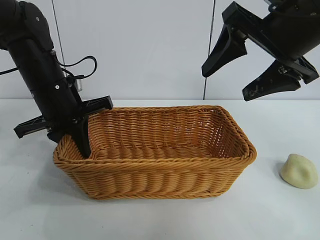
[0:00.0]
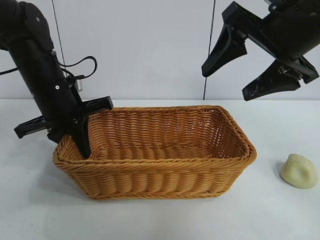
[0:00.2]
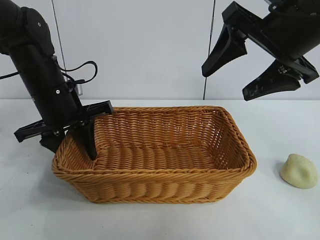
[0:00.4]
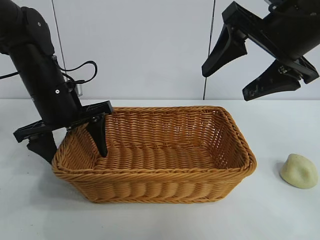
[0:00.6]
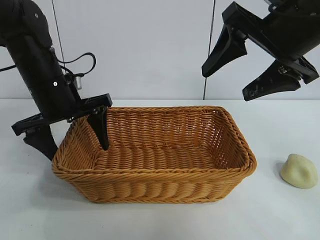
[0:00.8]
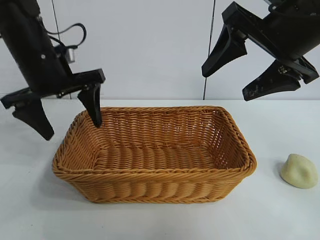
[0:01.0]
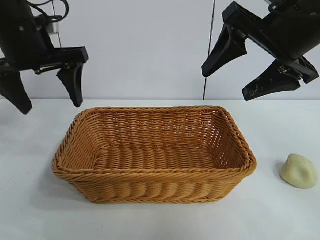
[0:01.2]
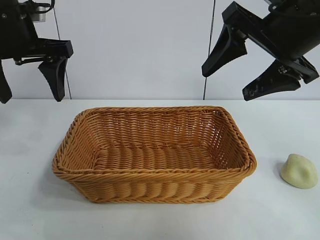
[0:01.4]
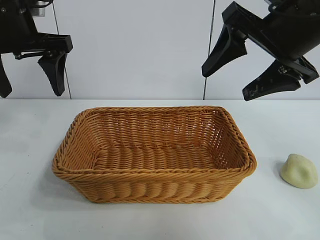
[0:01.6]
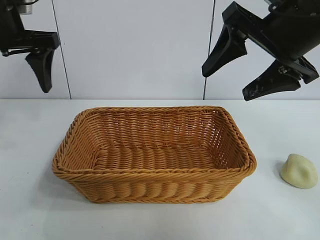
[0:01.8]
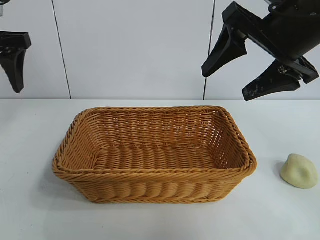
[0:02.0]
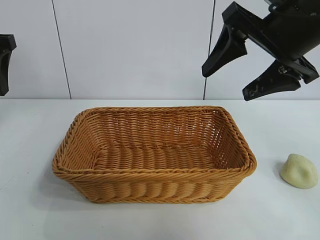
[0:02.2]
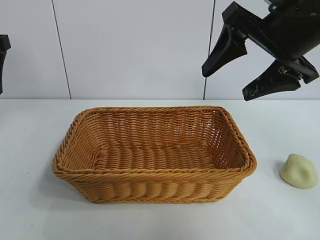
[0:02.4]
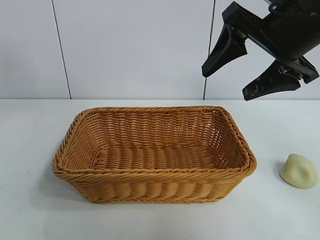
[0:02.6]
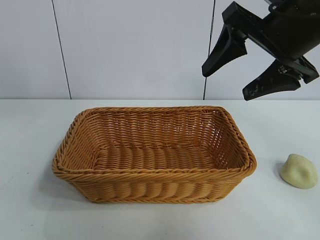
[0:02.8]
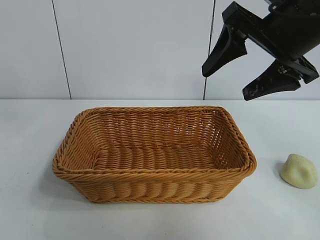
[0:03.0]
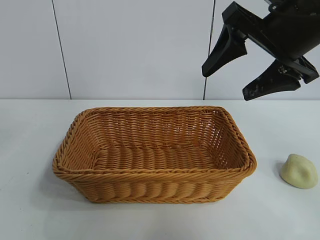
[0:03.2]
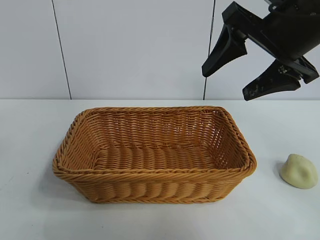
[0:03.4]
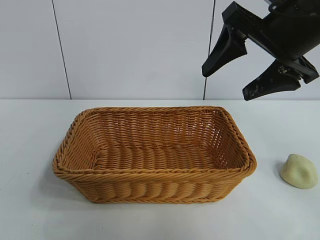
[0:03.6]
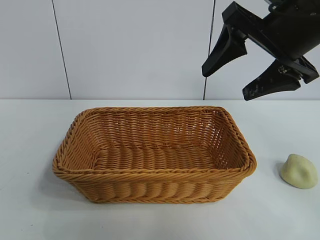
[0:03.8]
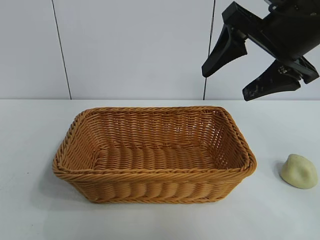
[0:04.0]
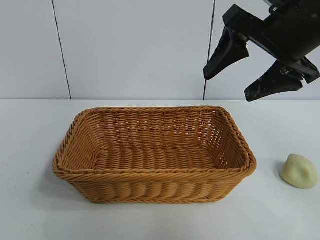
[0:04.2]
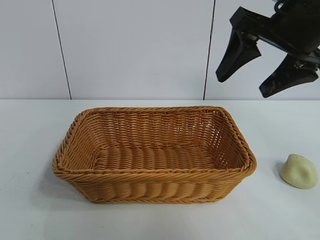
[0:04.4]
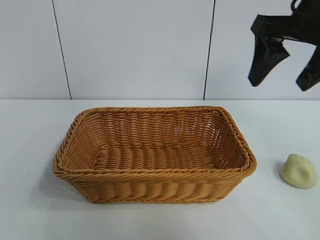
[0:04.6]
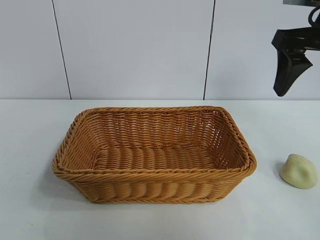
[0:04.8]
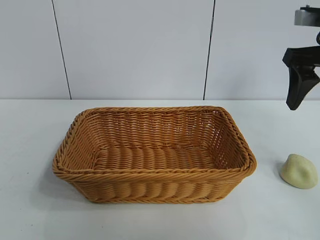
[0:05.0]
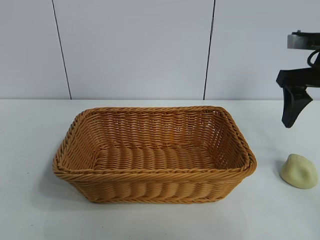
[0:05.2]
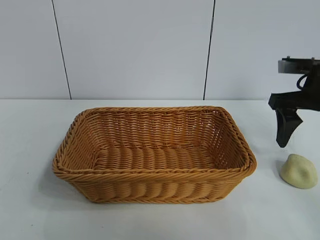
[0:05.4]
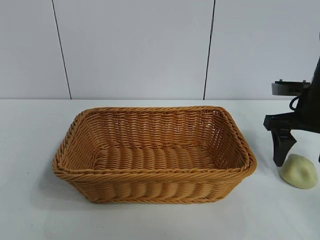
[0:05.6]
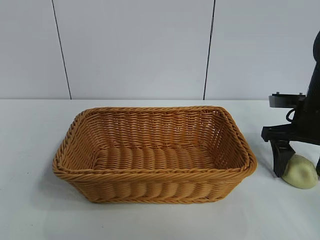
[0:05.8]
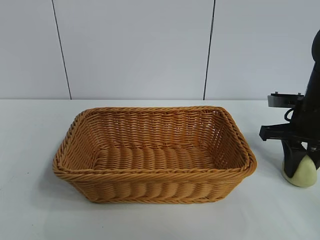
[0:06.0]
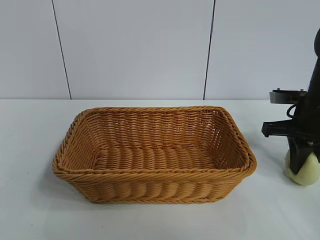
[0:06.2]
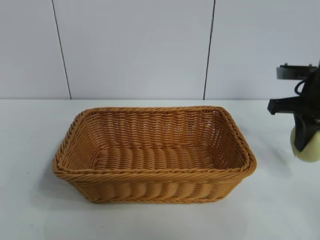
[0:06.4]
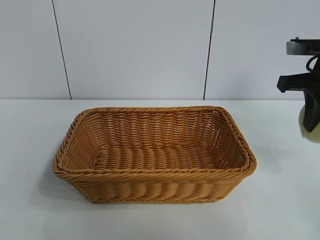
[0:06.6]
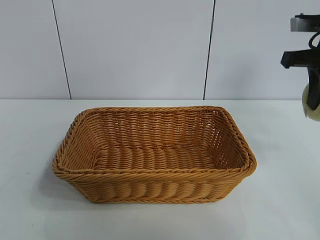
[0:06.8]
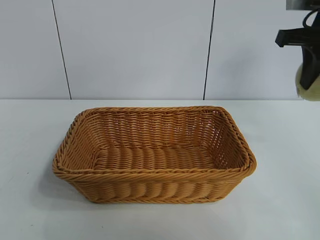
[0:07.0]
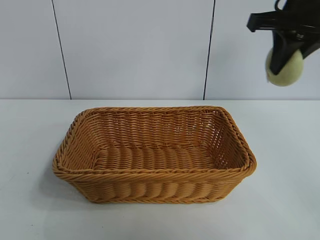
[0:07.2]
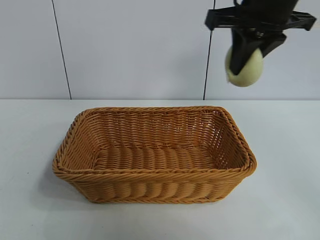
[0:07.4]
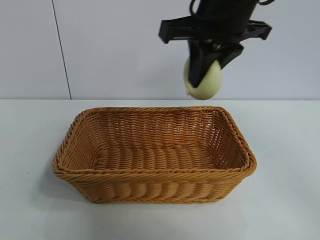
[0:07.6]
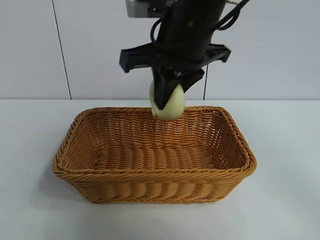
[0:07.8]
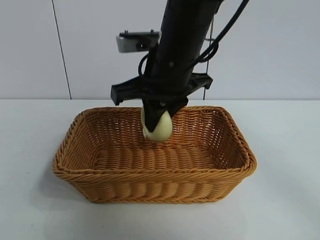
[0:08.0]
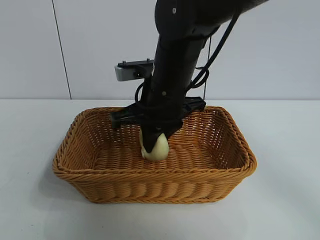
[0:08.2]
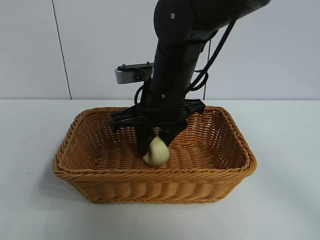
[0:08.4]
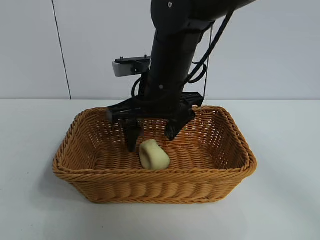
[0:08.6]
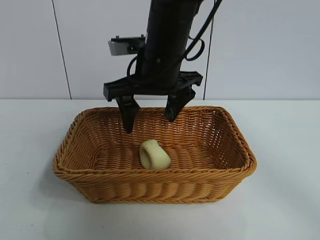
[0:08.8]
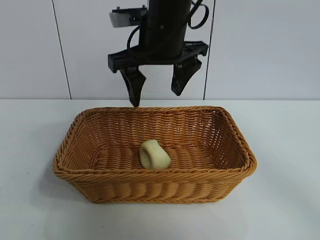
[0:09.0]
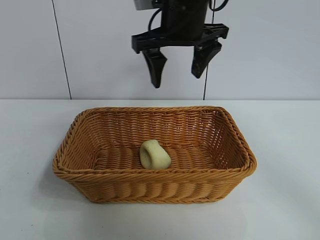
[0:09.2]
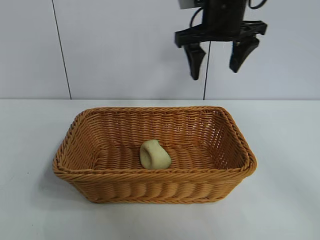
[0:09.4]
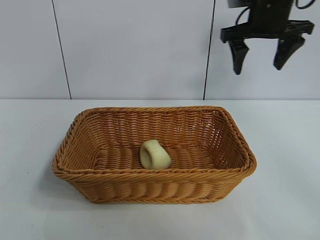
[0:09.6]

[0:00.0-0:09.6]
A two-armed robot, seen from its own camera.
Task of the whole recording: pick up the egg yolk pastry and put it into the basket.
Step, 0:00.8 to 0:06.0: Grasp egg yolk pastry with right gripper.
Step, 0:06.2 to 0:08.6: Place the egg yolk pastry in the basket with right gripper.
